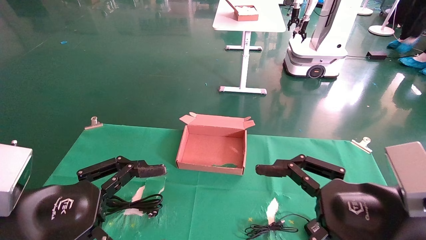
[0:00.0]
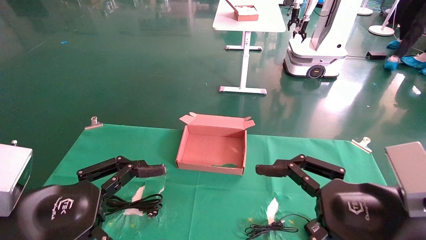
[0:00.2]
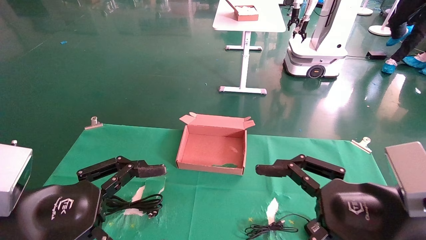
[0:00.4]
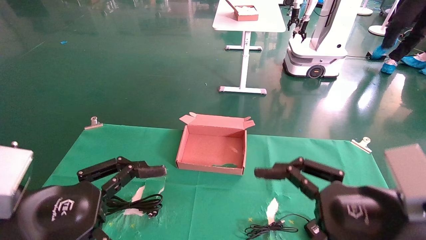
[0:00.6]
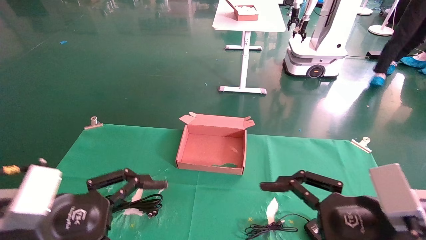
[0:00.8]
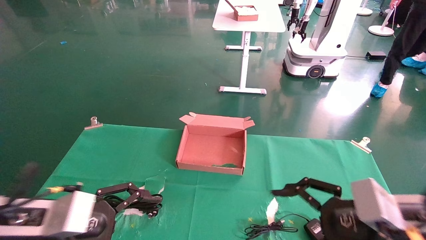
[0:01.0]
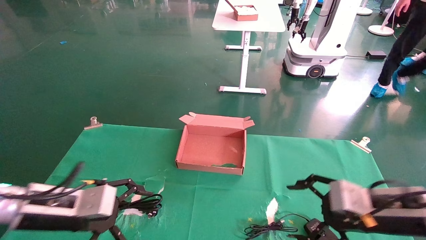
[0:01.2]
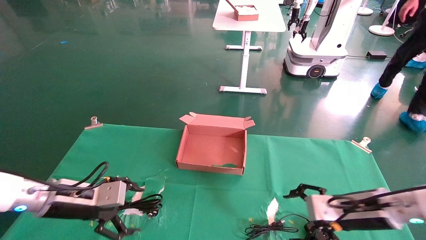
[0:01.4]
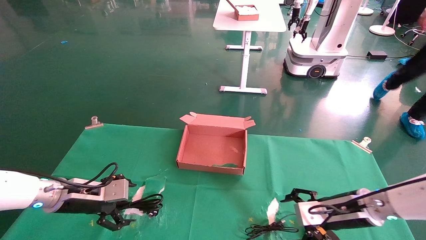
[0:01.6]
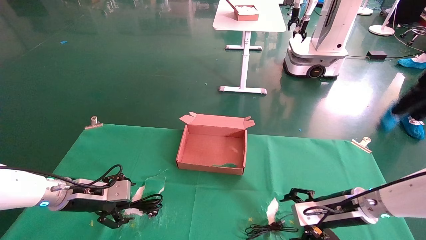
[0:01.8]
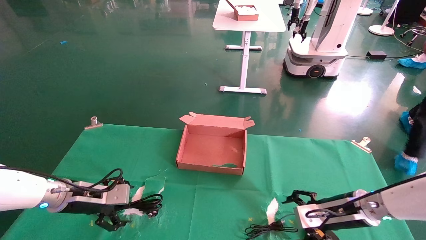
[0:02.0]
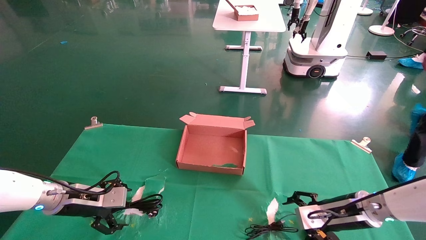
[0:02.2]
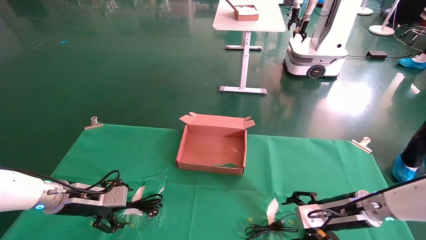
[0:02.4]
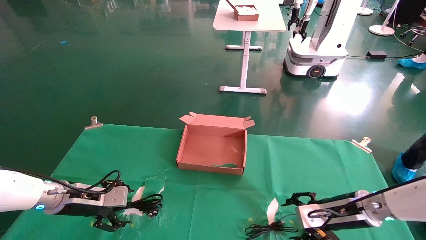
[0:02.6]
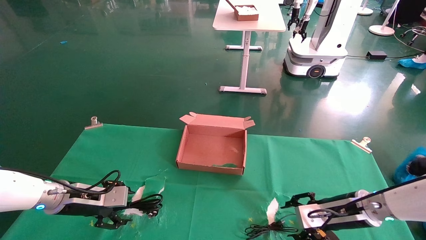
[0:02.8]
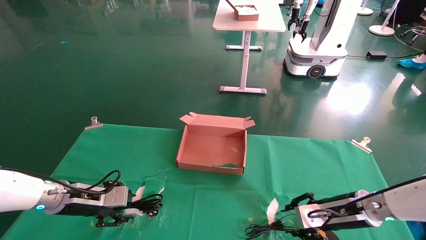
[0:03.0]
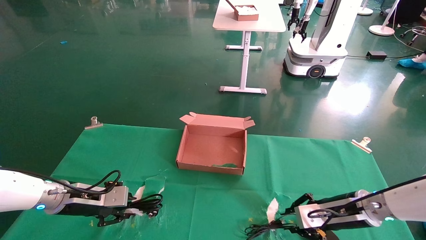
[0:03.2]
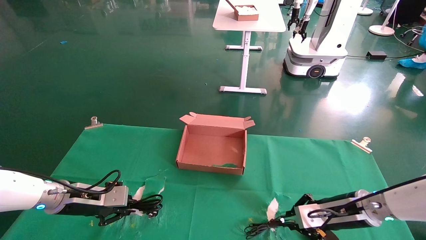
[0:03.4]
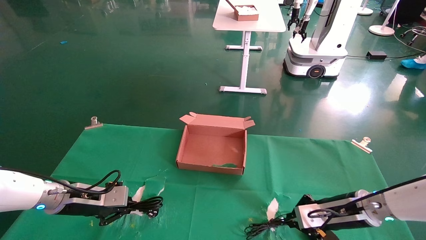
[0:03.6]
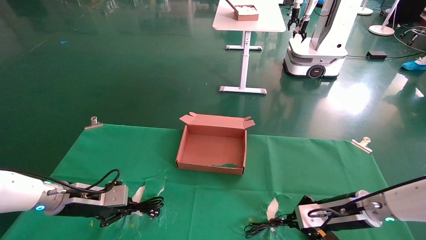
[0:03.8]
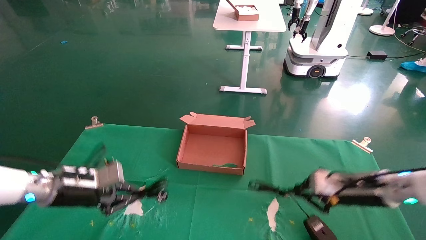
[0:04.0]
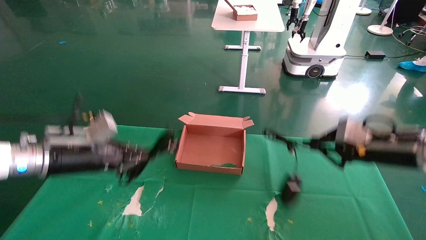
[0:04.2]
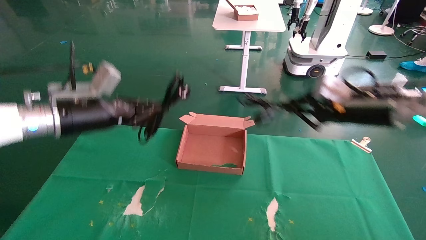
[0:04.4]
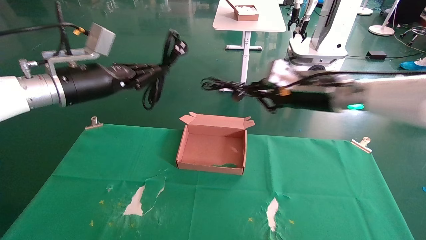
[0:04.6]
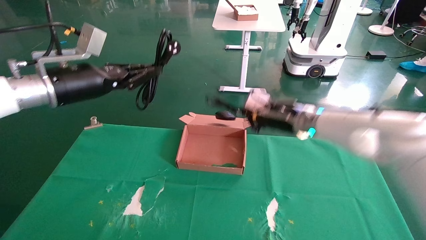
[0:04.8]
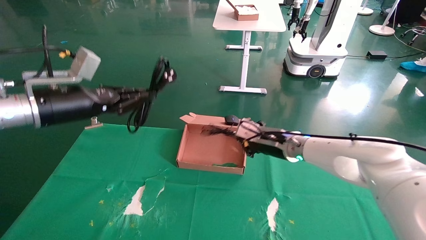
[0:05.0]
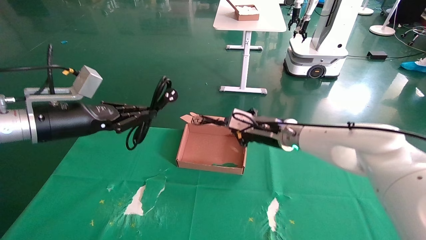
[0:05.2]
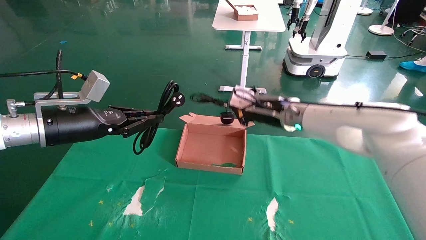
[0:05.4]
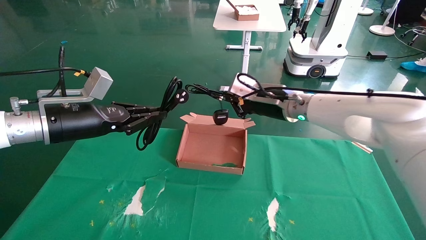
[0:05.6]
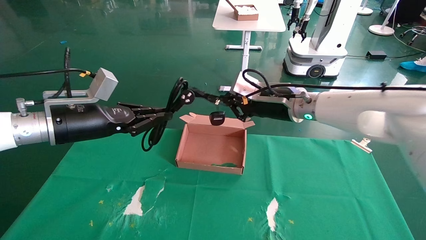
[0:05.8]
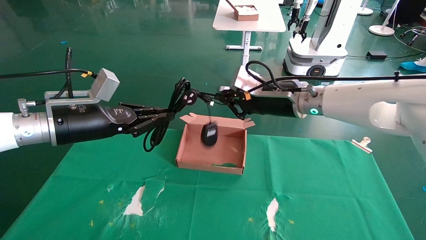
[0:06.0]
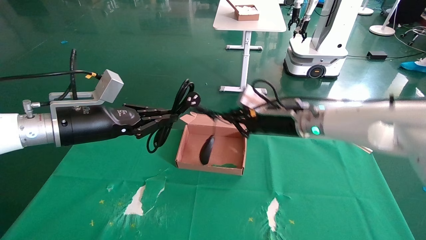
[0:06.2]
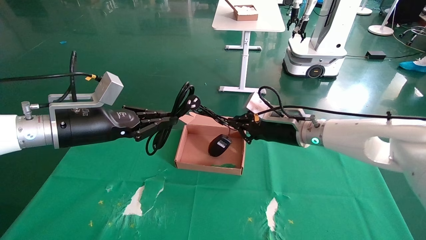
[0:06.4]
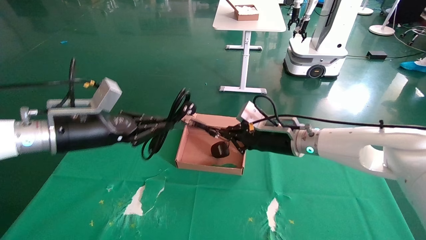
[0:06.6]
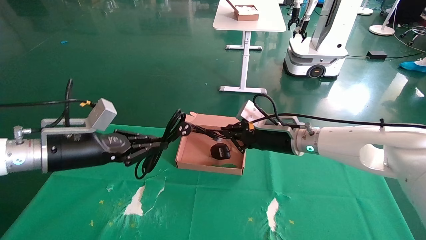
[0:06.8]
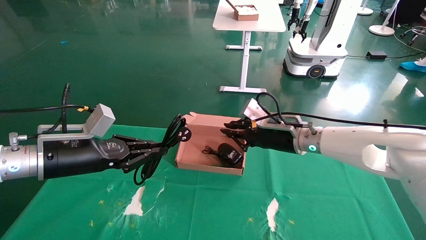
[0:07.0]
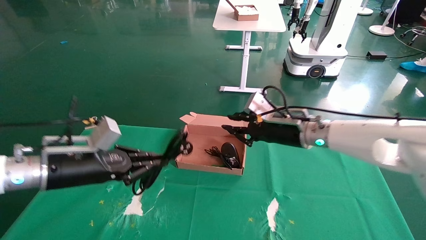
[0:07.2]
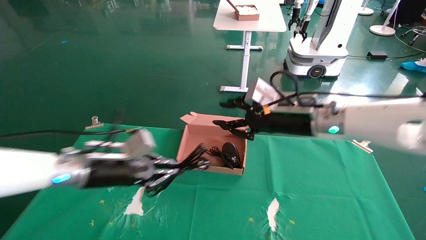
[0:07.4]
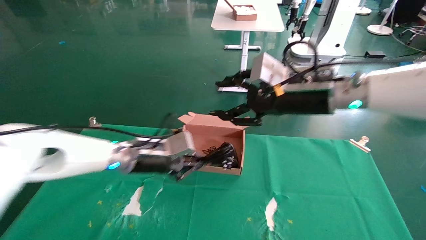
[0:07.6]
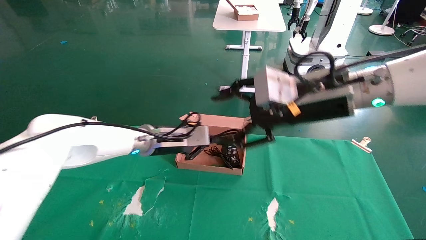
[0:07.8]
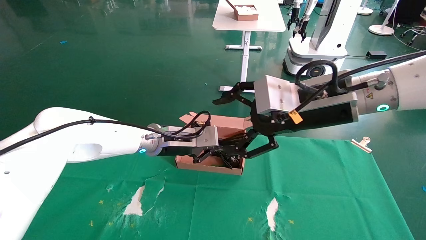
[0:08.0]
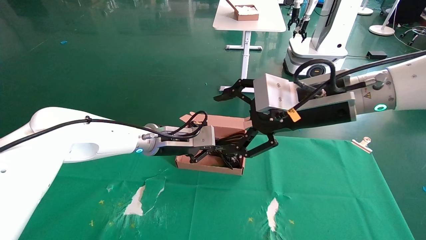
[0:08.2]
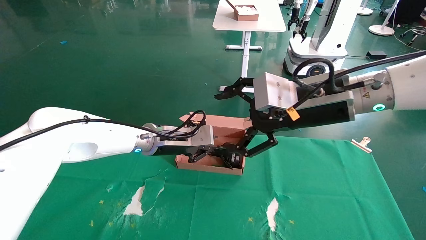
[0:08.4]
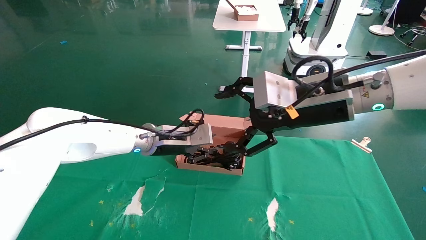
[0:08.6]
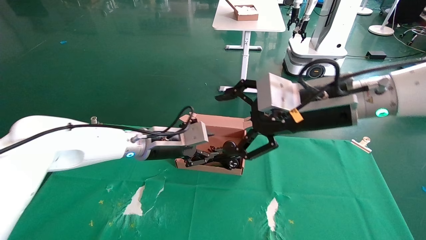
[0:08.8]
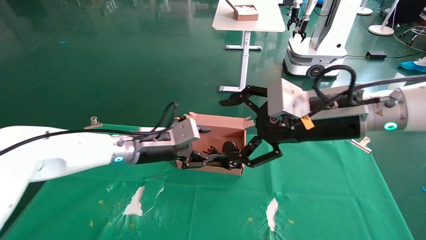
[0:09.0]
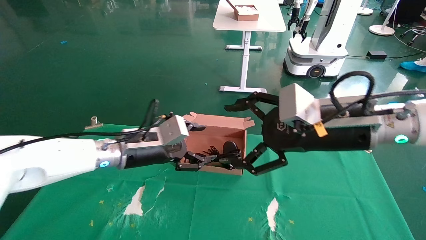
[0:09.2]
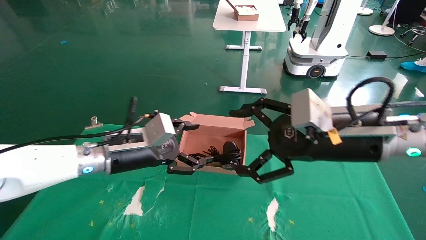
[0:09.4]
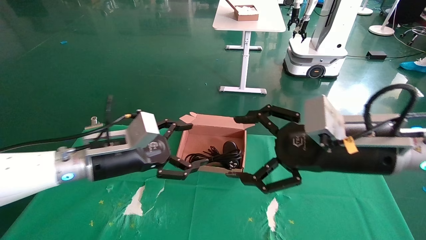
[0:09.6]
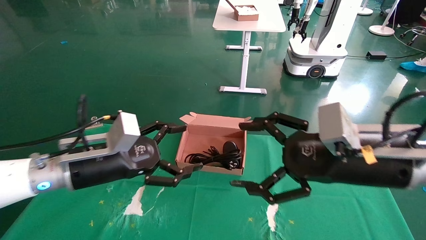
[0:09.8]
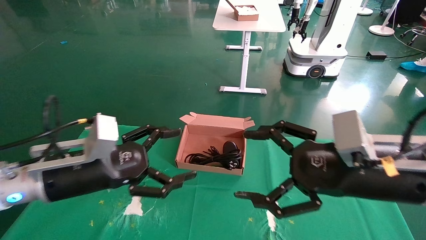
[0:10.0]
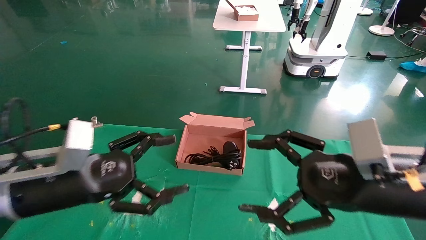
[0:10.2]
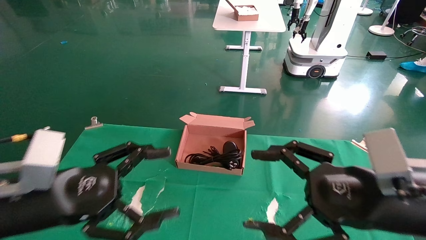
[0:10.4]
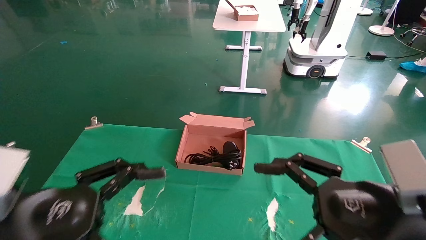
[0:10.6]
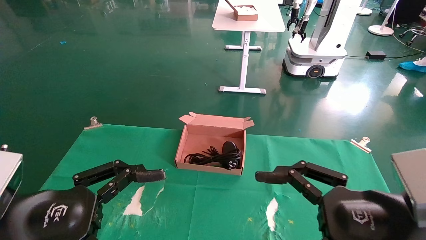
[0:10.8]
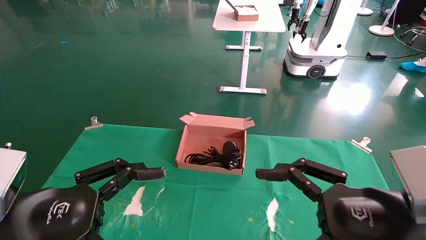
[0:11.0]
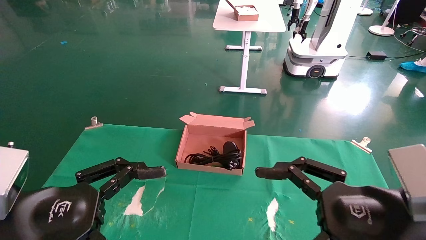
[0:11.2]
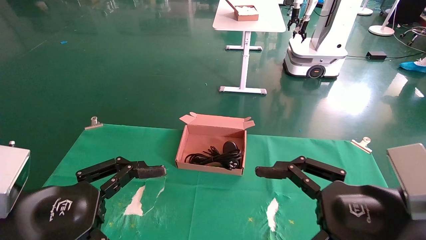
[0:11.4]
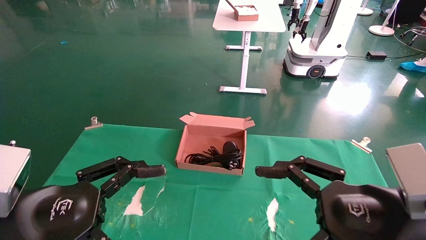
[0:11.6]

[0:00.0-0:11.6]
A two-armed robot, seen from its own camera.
Step, 0:01.0 to 0:03.6: Grab and lift both the mouse and power cord from the accessory packaging area at the same time.
Step, 0:03.8 to 0:08.8: Place the mouse and power cord into the box.
0:00.0 to 0:01.4: Both grippers move forward and downward, roughly 20 cm.
0:01.4 to 0:02.8: The left gripper moves some 5 cm. The right gripper shifts by roughly 5 cm.
0:02.8 to 0:04.4: Both grippers move upward, about 20 cm. The right gripper closes up. The left gripper closes its fingers.
0:04.4 to 0:05.8: The right gripper heads to the left, covering about 15 cm.
0:05.8 to 0:07.2: The right gripper shifts by about 5 cm; the left gripper travels downward by some 10 cm.
0:07.2 to 0:08.8: The right gripper is displaced backward and upward by approximately 15 cm, and opens; the left gripper is displaced to the right and forward by roughly 15 cm.
0:08.8 to 0:10.2: The left gripper travels backward and to the left by approximately 20 cm, and opens its fingers; the right gripper is displaced downward, backward and to the right by about 15 cm.
0:10.2 to 0:11.6: The left gripper is displaced backward by about 5 cm.
